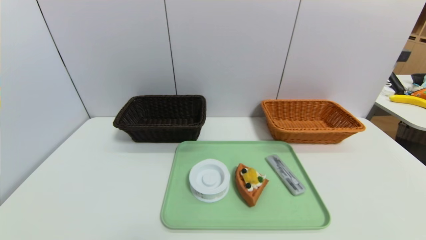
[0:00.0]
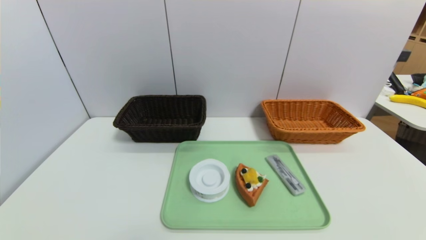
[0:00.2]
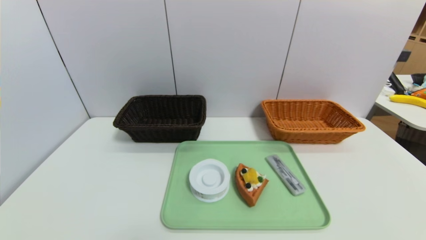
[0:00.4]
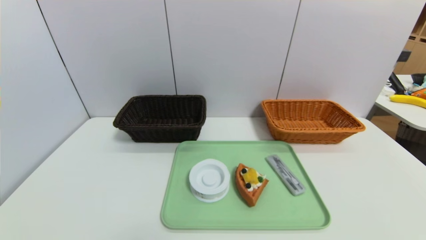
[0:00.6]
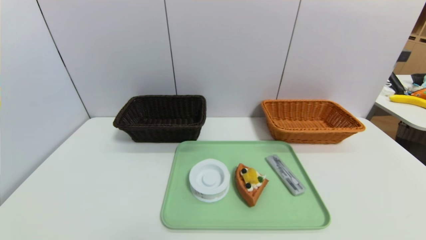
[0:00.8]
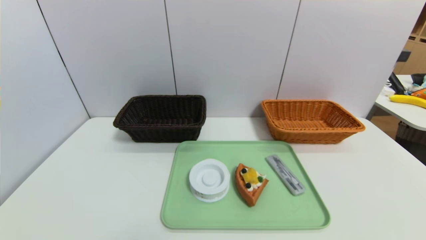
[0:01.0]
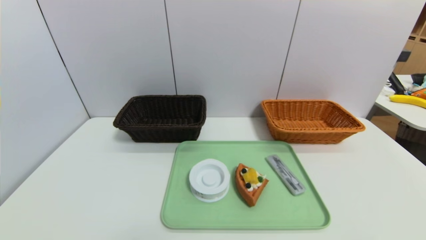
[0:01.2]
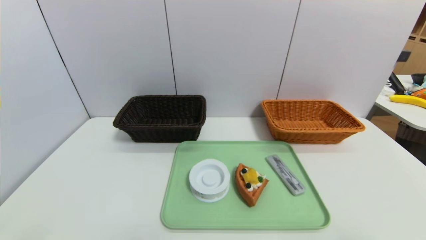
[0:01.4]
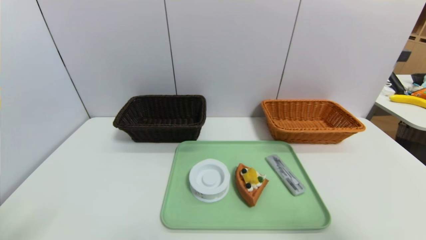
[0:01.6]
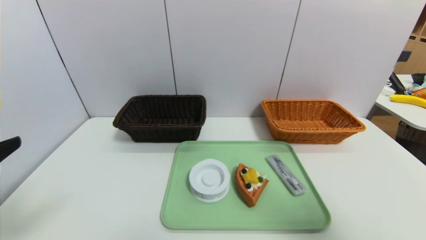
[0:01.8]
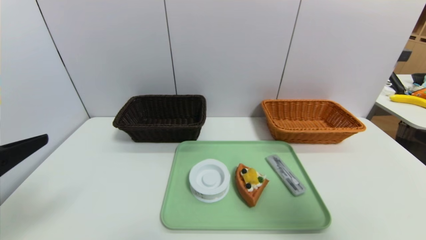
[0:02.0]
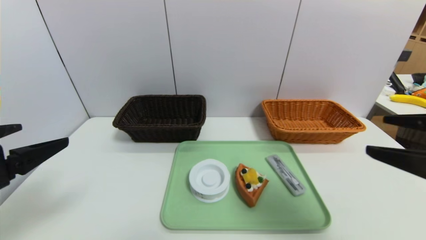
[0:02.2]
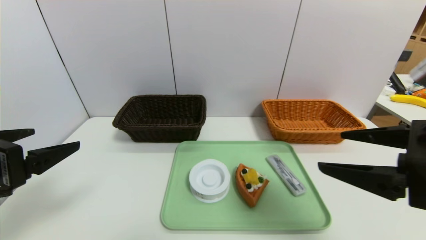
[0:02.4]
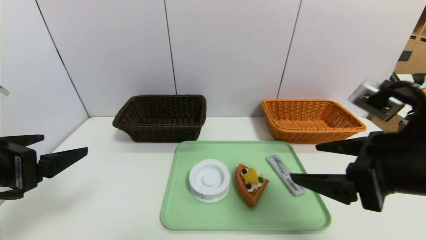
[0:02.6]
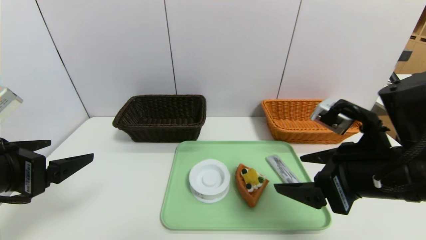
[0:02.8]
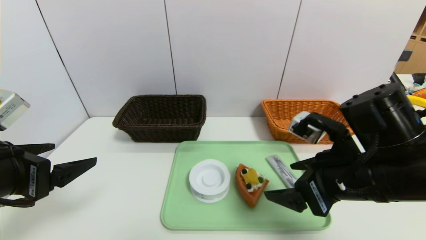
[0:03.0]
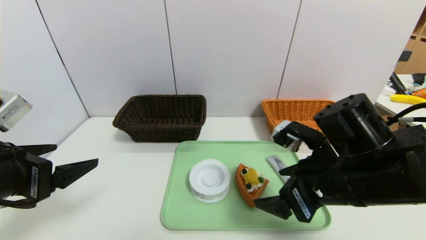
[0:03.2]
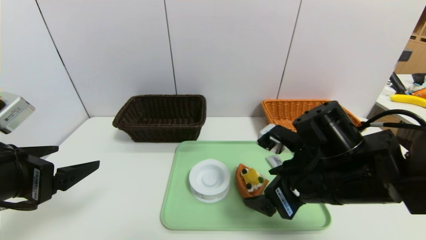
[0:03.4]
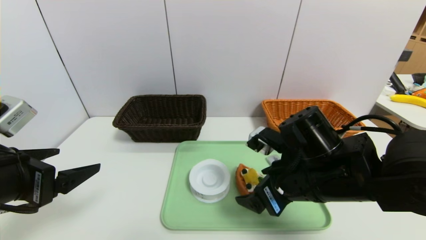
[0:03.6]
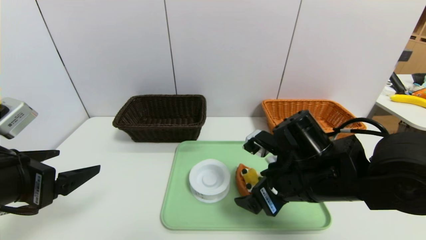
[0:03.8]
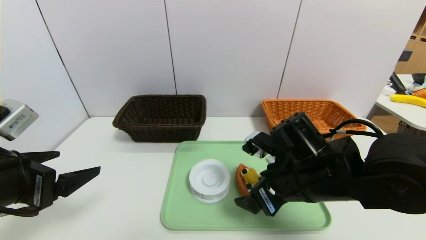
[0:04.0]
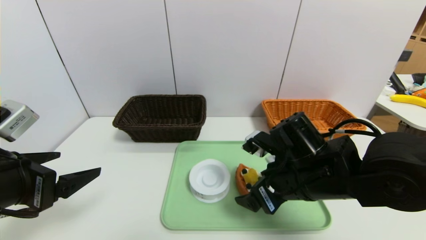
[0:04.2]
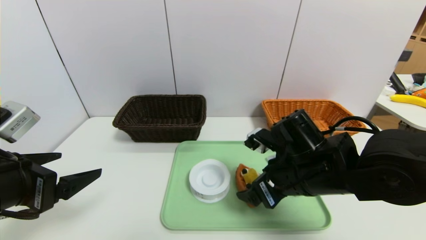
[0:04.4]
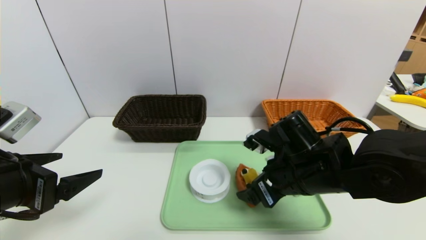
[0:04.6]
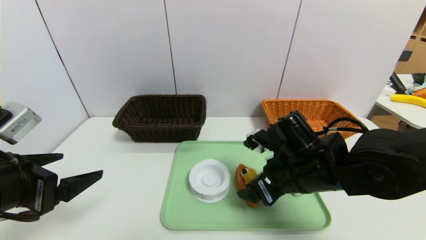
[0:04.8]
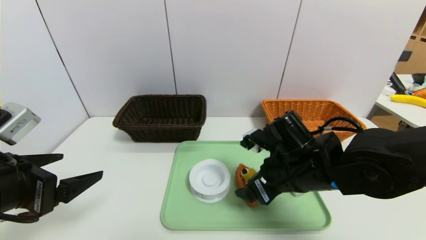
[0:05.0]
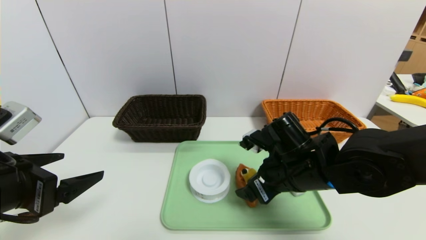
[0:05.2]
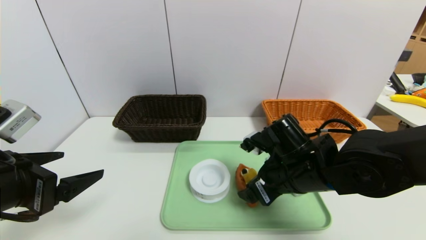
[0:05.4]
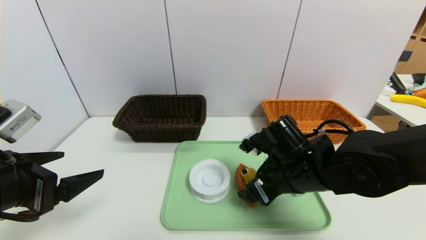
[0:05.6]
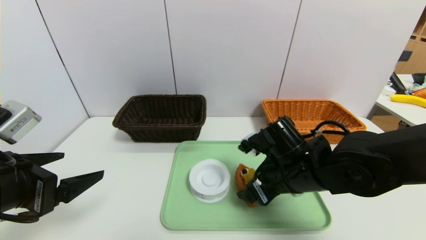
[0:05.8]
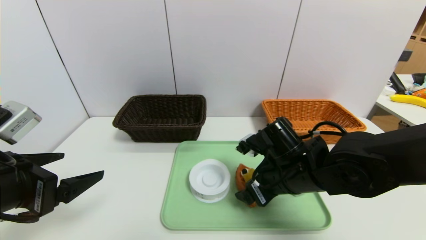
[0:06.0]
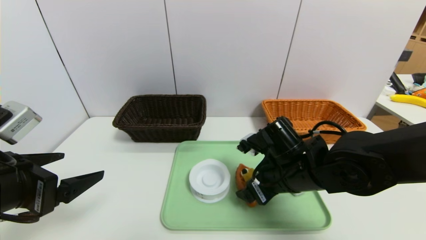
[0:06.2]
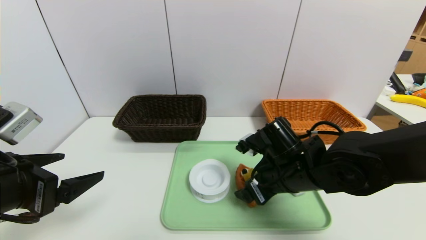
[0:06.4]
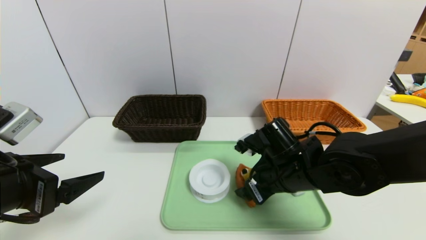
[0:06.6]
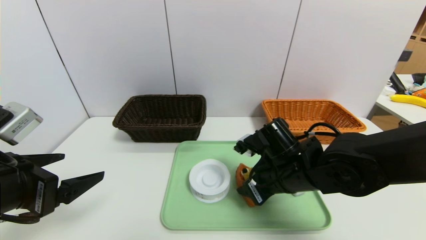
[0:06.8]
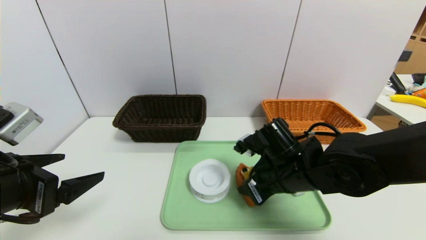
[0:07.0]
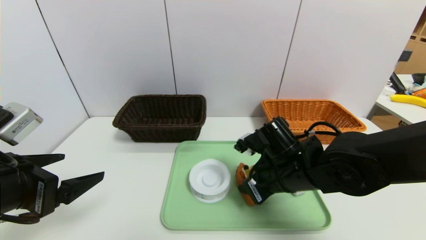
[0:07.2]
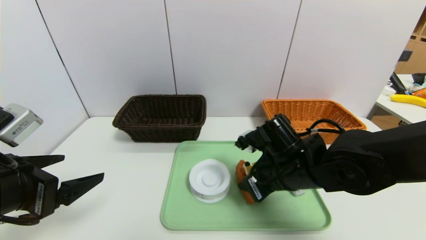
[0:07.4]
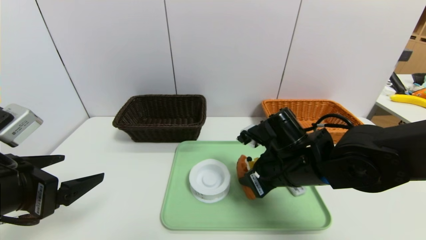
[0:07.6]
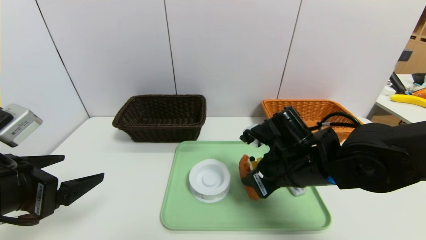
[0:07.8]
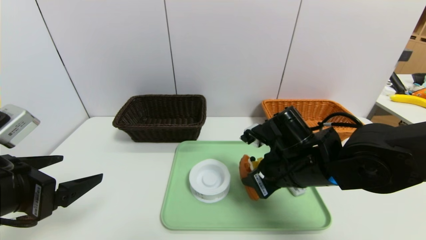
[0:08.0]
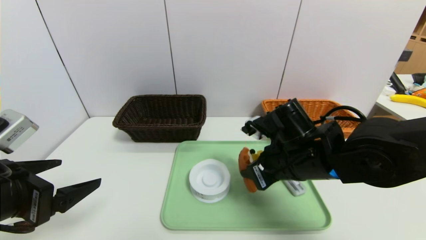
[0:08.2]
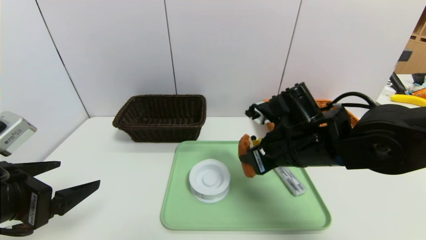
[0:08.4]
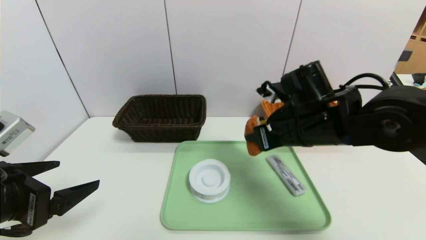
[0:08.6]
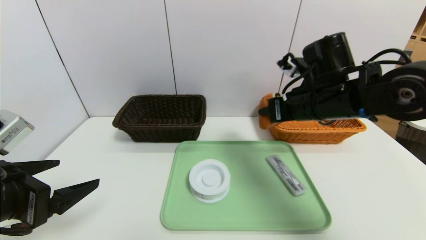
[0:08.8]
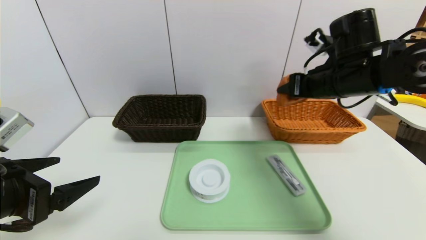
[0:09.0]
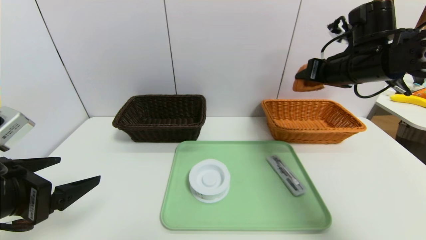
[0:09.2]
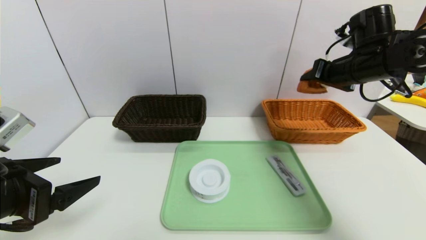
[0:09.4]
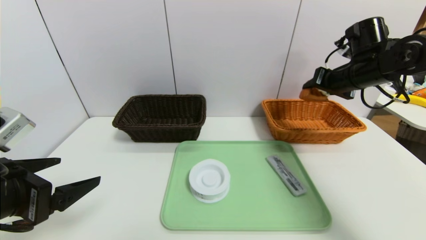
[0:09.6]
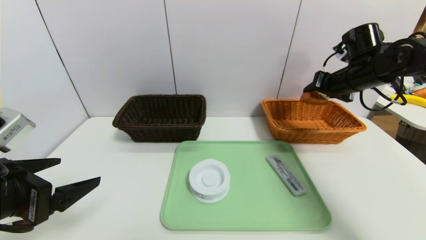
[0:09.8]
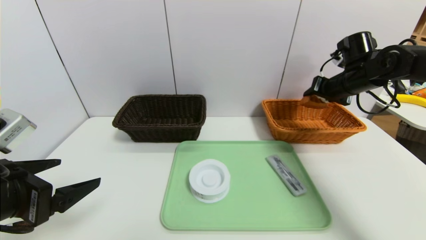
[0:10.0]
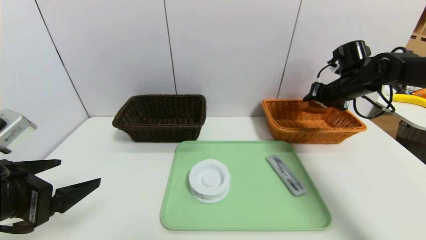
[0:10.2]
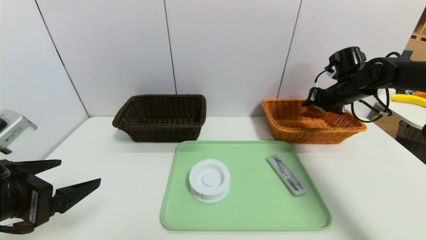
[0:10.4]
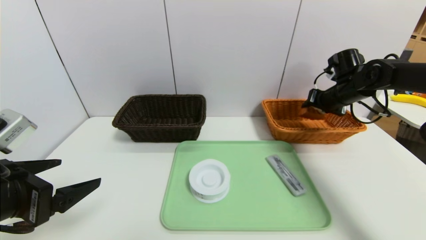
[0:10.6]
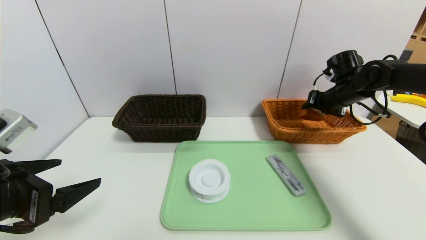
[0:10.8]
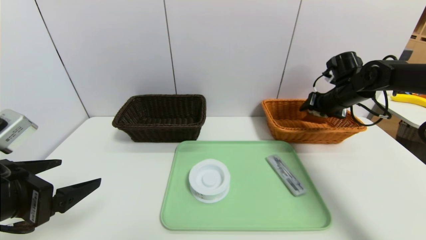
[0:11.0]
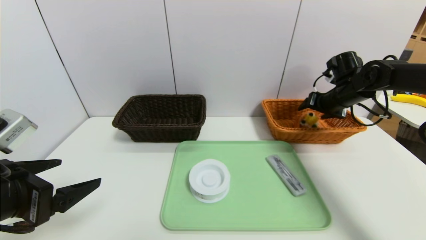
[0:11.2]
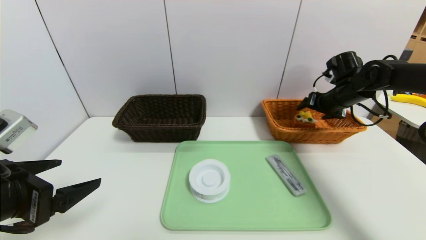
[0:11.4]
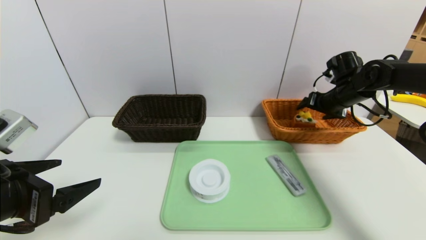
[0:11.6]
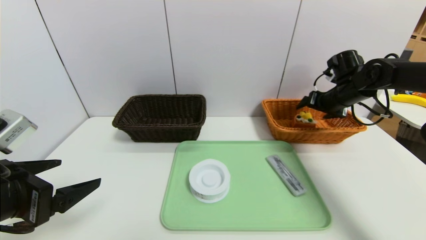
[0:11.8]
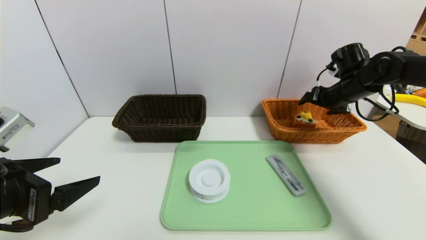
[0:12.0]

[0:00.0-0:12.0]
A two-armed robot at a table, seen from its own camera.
Task of the whole recording: place the food in the right basket with the right gripper, and place the non food items in the left basket with the left gripper.
Step, 0:00.0 to 0:11.4: Grasp the triangle cake and put it in the right basket.
0:00.0 to 0:01.6: The right gripper is displaced upward by approximately 20 cm.
0:01.6 to 0:03.0: The left gripper shifts roughly 10 cm forward; the right gripper heads forward, to the left and downward, covering about 20 cm.
0:03.0 to 0:04.4: The right gripper moves downward, roughly 5 cm.
0:04.4 to 0:06.0: The grippers make only small movements.
0:06.0 to 0:07.6: The right gripper closes its fingers.
0:07.6 to 0:09.0: The right gripper heads upward, to the right and forward, covering some 15 cm.
0:09.0 to 0:10.4: The right gripper shifts about 15 cm forward, to the right and downward.
0:10.4 to 0:12.0: The right gripper opens up.

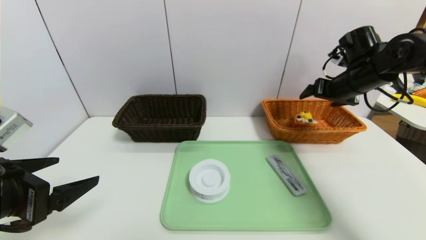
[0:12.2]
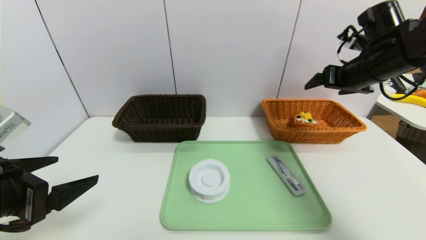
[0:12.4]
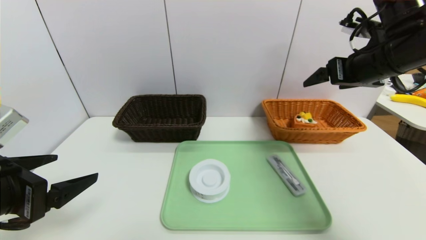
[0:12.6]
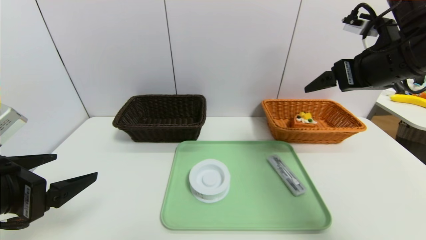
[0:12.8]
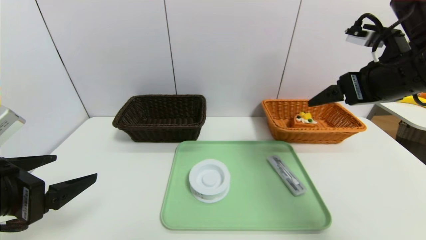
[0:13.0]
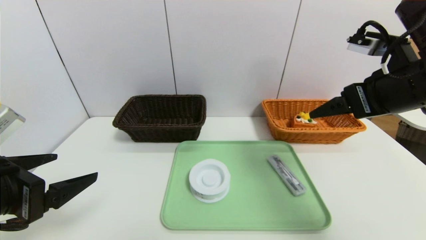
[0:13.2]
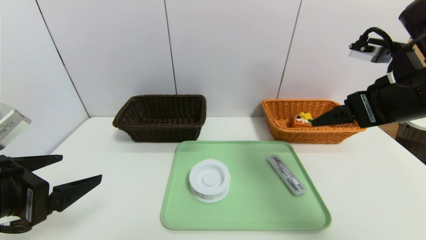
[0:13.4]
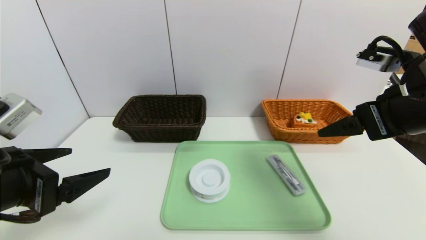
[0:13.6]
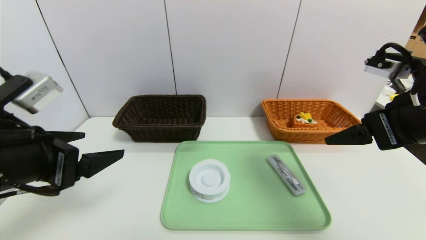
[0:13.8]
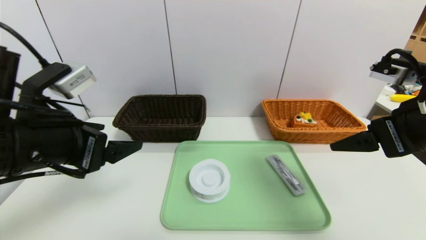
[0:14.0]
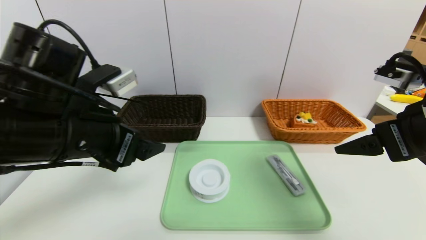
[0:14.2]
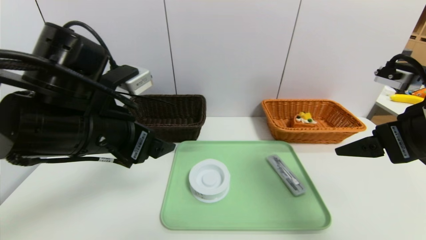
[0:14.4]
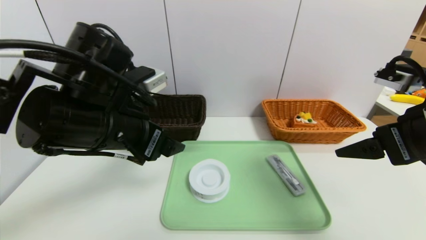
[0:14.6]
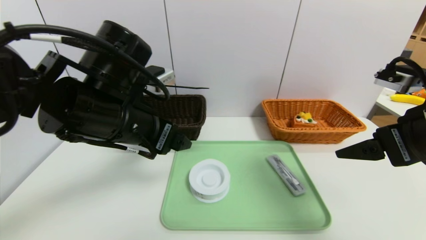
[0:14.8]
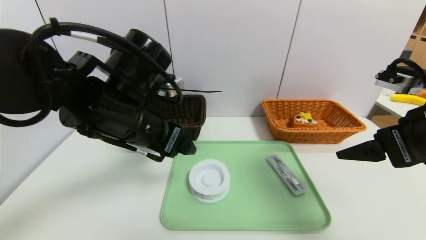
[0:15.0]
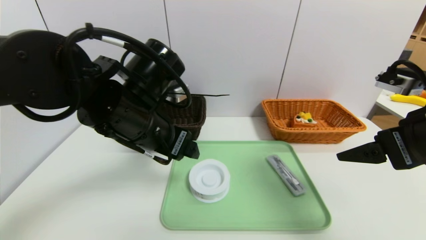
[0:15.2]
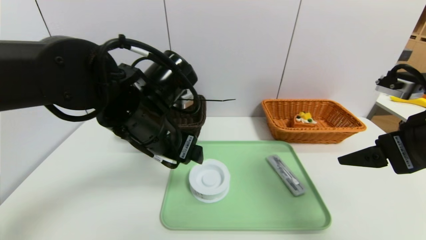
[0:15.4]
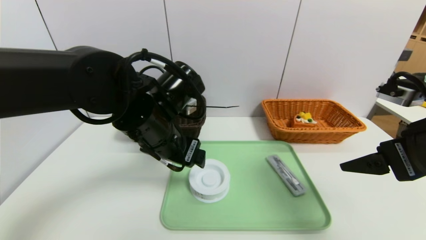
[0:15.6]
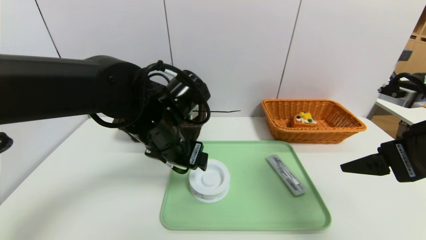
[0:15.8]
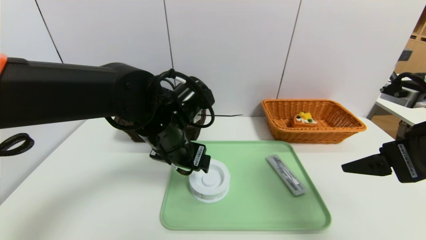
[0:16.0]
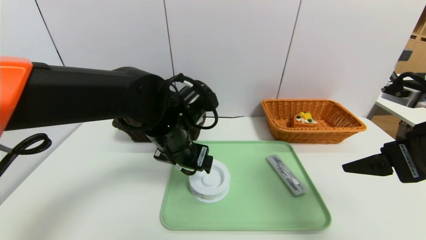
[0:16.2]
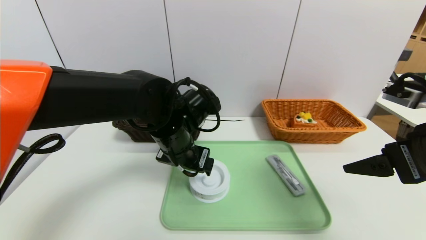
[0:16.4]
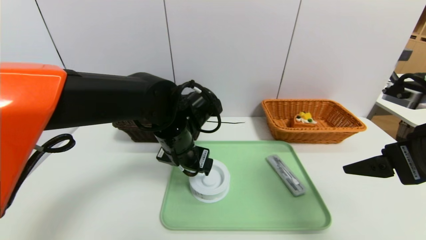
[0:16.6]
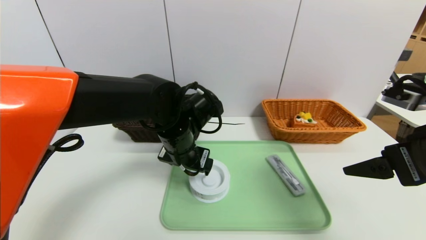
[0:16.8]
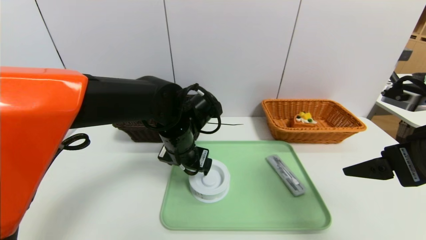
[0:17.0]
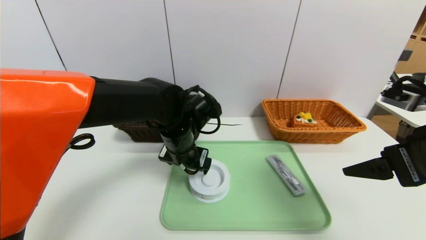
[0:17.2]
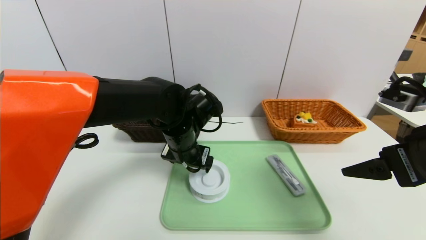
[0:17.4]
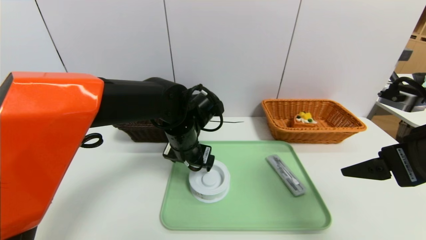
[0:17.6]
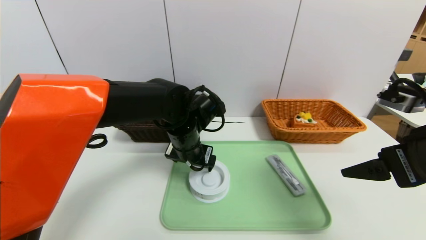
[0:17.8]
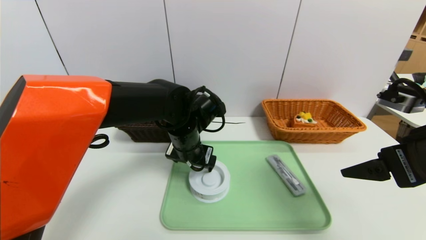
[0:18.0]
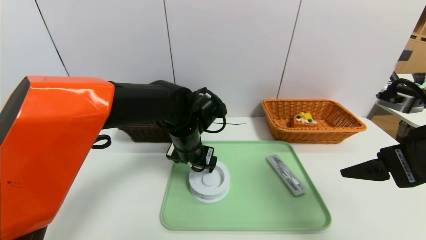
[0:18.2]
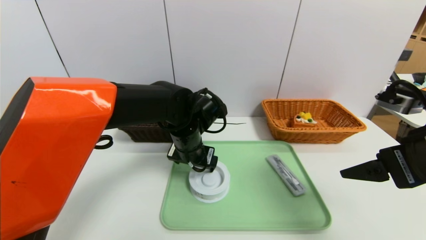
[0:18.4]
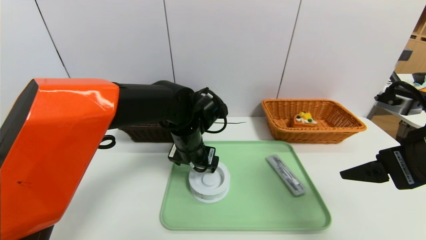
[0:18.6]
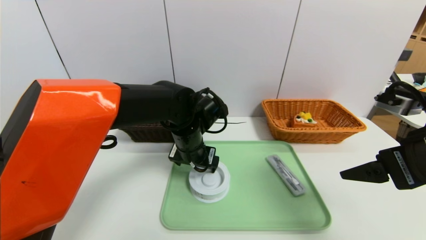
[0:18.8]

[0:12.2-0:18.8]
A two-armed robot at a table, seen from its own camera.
Task of the whole recording: place the food in the right basket with the right gripper, and place the non food items in the left basket with the left gripper.
0:12.2 to 0:13.8: The right gripper shifts roughly 20 cm backward, while the left gripper changes place by about 5 cm.
0:13.8 to 0:15.4: The left gripper goes about 15 cm to the right and forward.
0:15.4 to 0:17.2: The left gripper goes roughly 10 cm downward and forward.
0:17.2 to 0:18.8: The grippers make only small movements.
